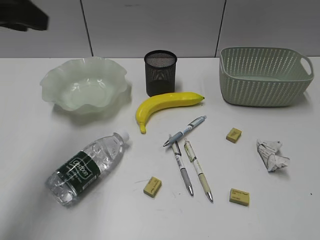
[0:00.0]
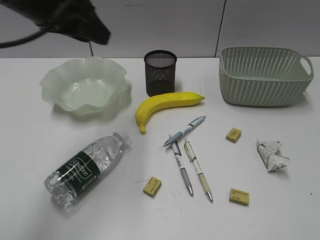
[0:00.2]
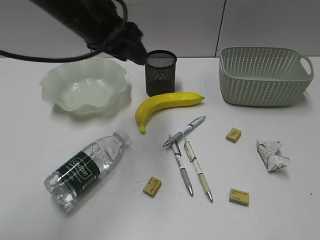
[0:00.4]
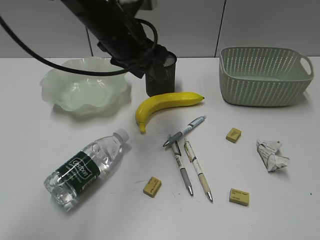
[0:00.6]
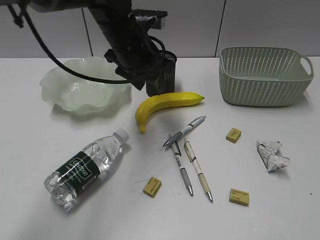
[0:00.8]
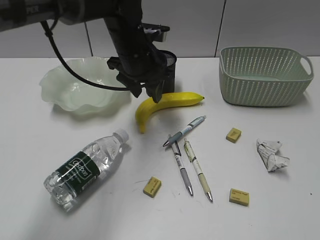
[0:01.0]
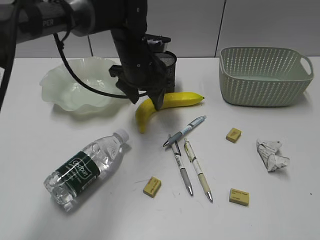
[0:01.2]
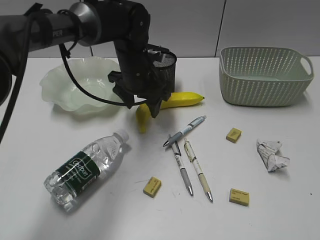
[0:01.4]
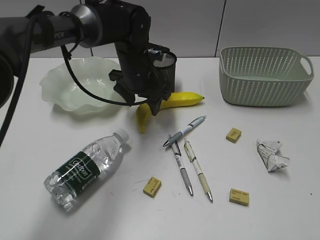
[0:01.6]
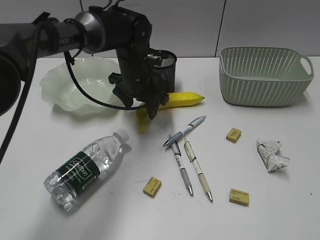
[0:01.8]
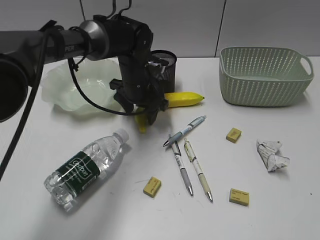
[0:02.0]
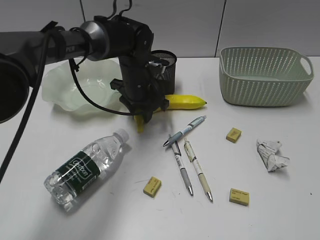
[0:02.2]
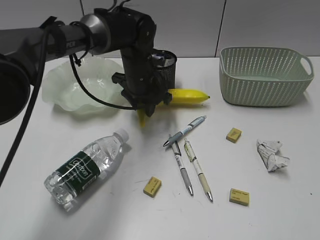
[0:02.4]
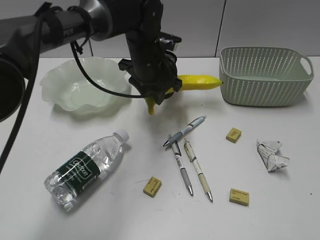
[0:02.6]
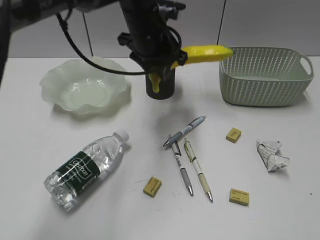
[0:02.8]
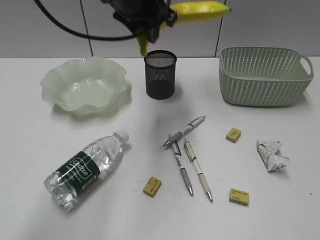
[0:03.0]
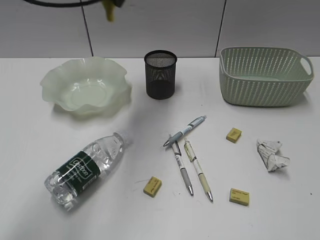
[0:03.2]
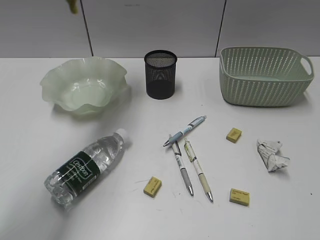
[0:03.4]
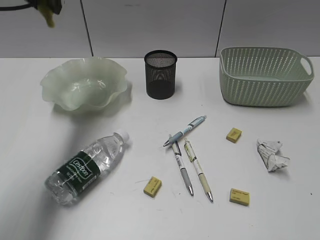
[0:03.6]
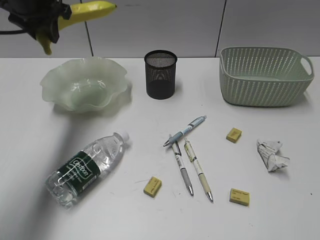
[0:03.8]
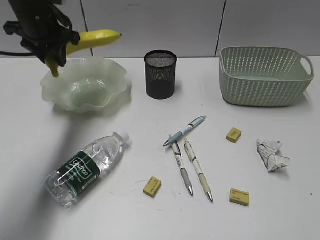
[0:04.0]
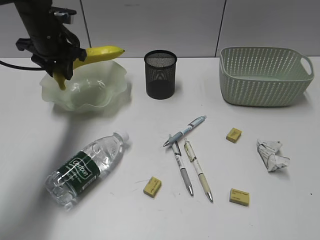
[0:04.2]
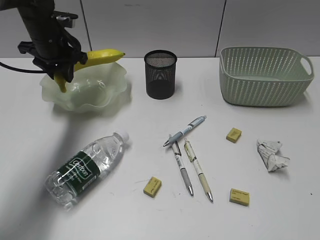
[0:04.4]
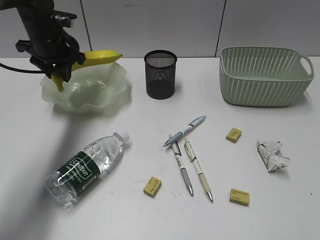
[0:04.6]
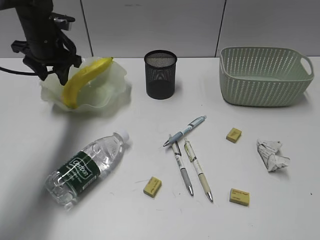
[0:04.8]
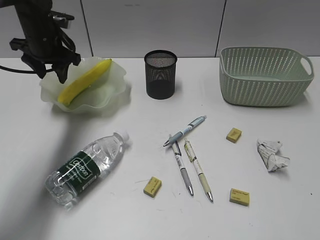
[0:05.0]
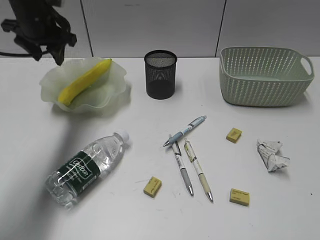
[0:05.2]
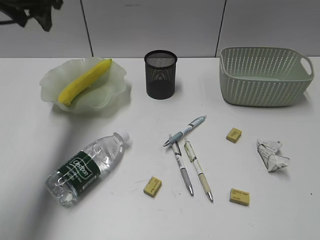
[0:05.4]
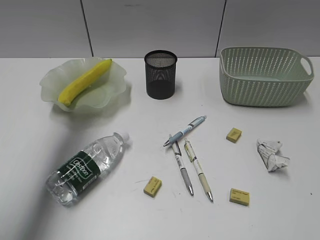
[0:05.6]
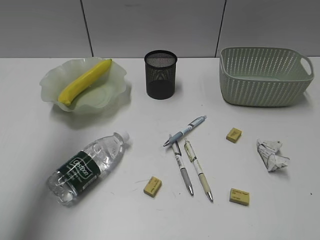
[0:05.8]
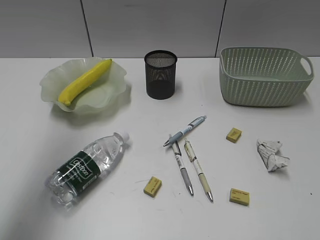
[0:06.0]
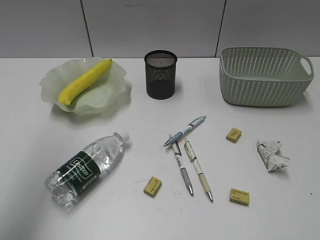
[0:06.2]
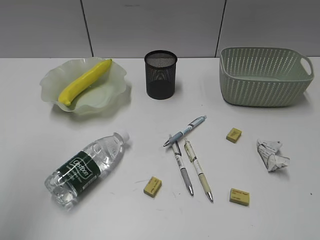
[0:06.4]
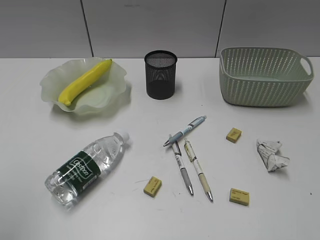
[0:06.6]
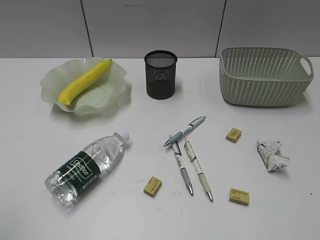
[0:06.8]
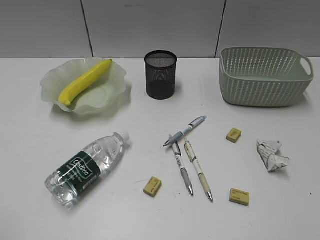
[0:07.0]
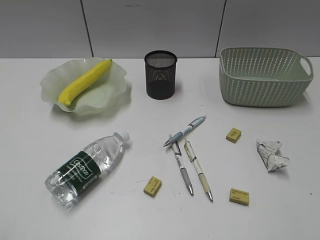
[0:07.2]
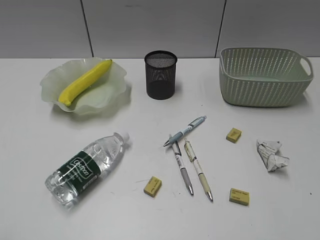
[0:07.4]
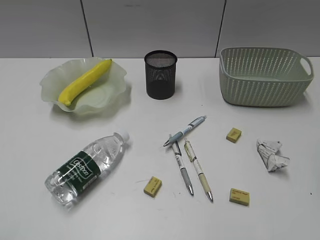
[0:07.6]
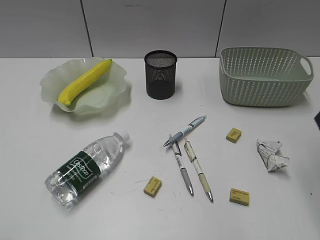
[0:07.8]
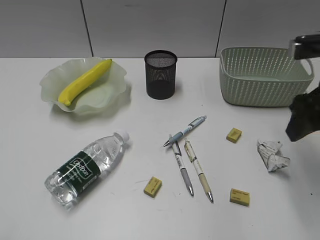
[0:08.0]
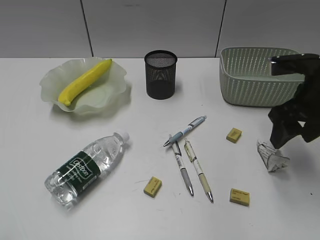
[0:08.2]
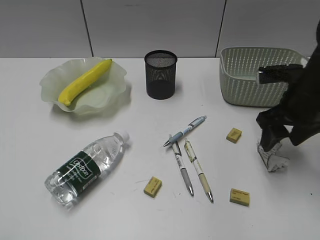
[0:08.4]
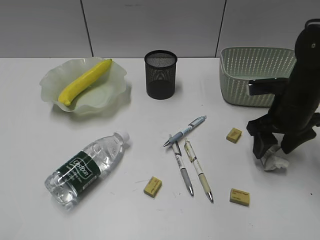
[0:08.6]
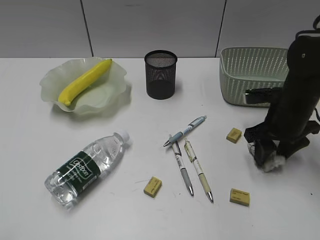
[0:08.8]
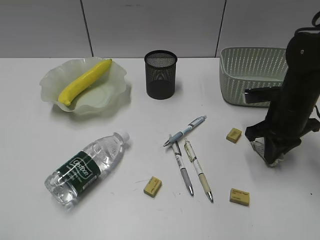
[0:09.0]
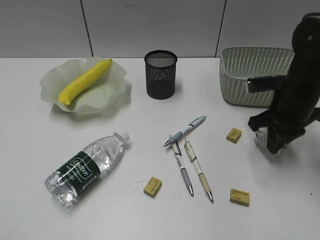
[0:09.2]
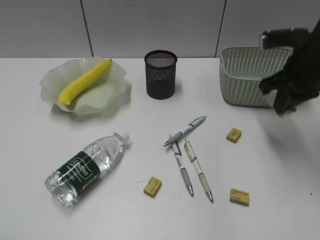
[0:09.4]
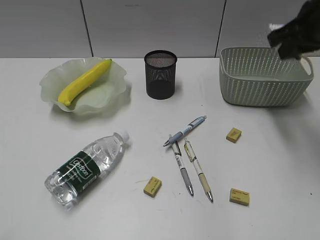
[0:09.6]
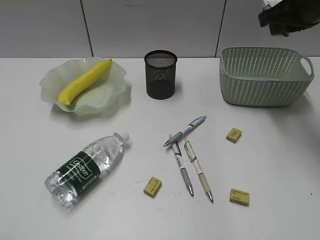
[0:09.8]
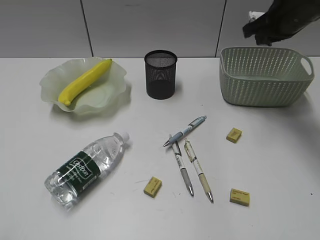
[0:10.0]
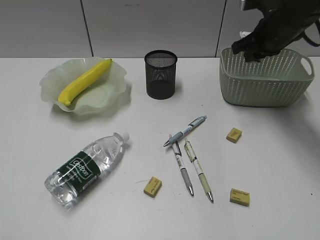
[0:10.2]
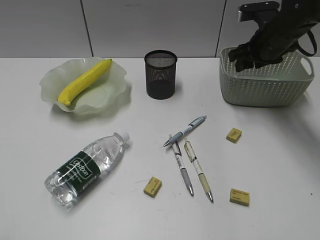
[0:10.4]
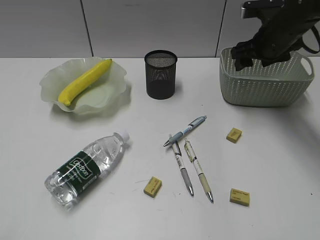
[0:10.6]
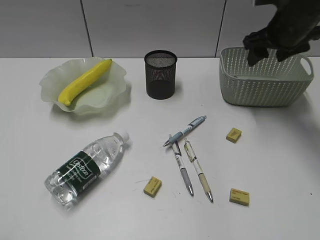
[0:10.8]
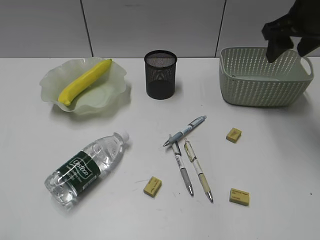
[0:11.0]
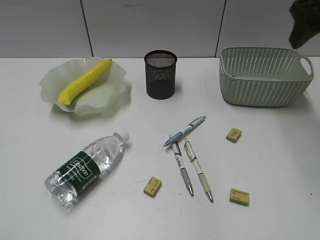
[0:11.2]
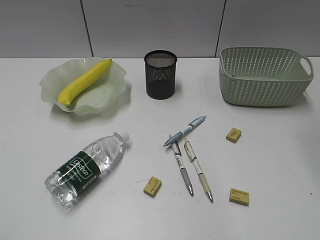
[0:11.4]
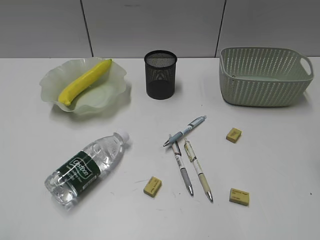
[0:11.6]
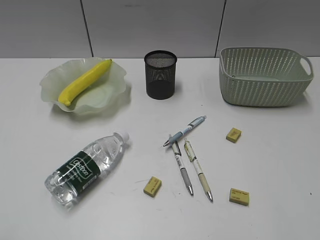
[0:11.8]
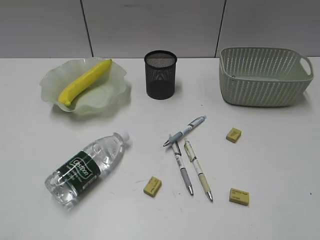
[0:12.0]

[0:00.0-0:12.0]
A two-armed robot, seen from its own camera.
Step, 0.0 to 2.2 s: Grasp the banana with left gripper.
Step, 2.4 to 4.8 s: Place the banana in the plate with left gripper.
Step, 5.0 to 9.0 s: Grasp the waste paper with right gripper.
Step, 9.2 to 10.6 s: Place the waste paper in the basket with right gripper.
0.0 to 1.6 s: The left gripper shifts about 30 cm to the right, downward and forward, and opens up.
1.6 to 3.0 s: The left gripper travels upward by some 15 cm, and closes its fingers.
3.0 to 4.4 s: The left gripper shifts approximately 20 cm to the left, downward and forward.
4.4 to 6.0 s: The left gripper moves upward and backward, about 35 cm.
6.0 to 7.6 s: The left gripper is displaced backward and downward by about 35 cm.
7.6 to 9.0 s: The right gripper moves downward and forward, about 30 cm, and closes.
9.0 to 10.4 s: The right gripper is displaced forward and upward by approximately 15 cm, and opens its fingers.
10.4 to 12.0 s: The right gripper shifts about 35 cm backward.

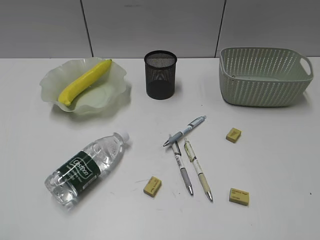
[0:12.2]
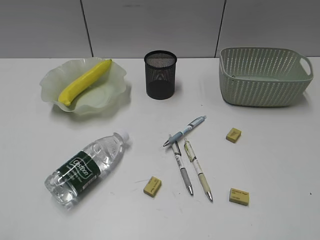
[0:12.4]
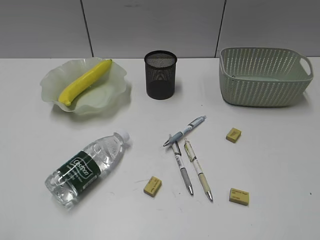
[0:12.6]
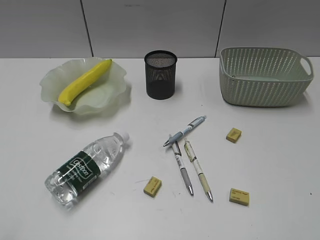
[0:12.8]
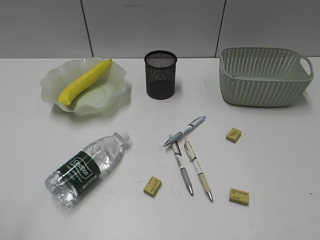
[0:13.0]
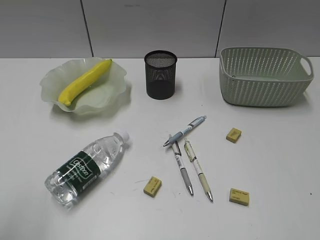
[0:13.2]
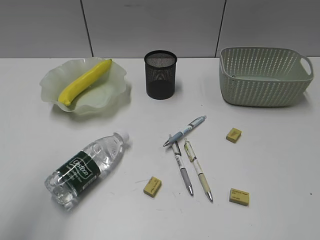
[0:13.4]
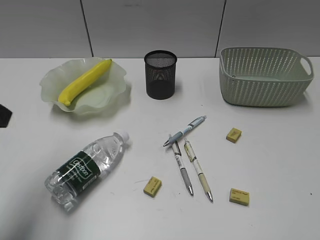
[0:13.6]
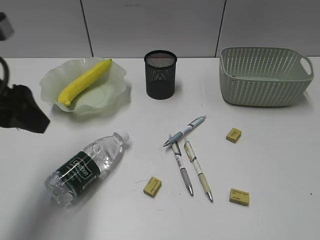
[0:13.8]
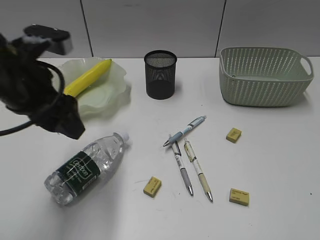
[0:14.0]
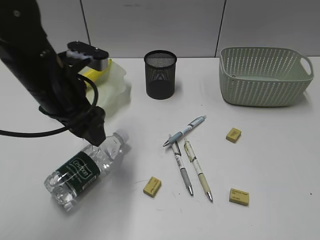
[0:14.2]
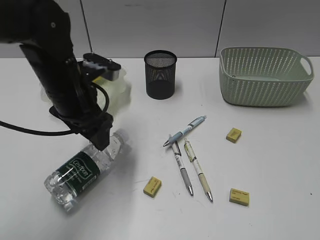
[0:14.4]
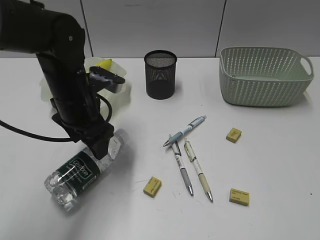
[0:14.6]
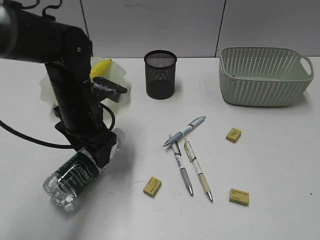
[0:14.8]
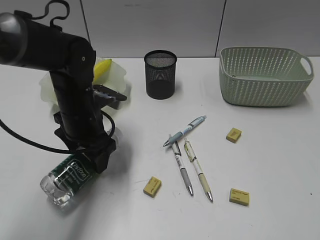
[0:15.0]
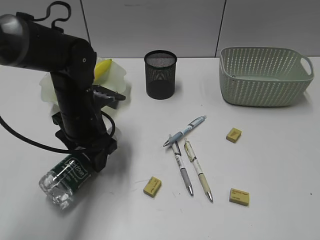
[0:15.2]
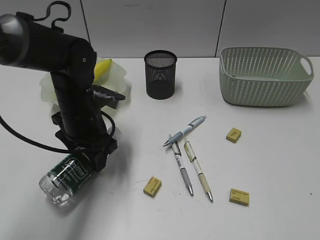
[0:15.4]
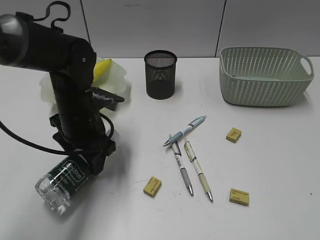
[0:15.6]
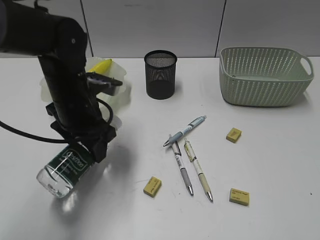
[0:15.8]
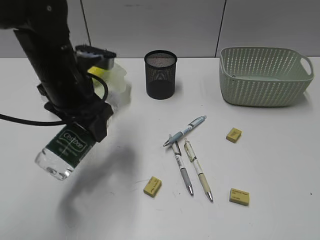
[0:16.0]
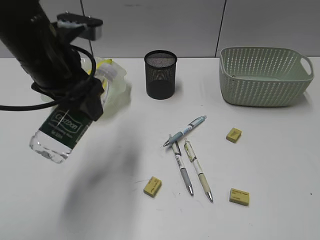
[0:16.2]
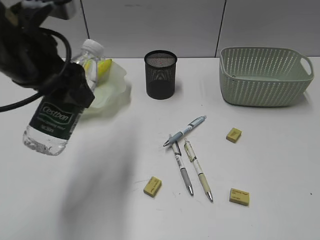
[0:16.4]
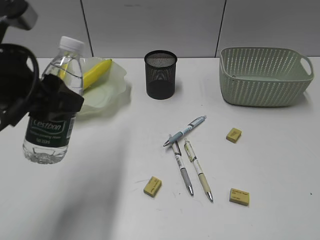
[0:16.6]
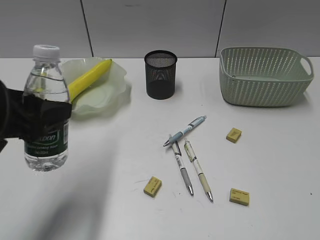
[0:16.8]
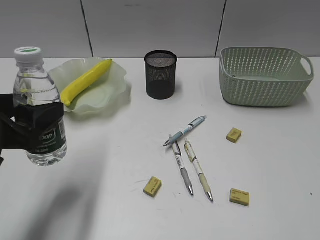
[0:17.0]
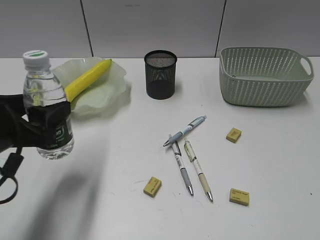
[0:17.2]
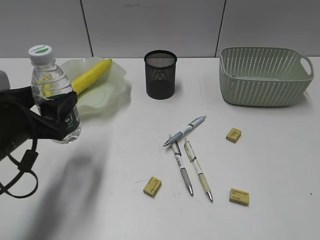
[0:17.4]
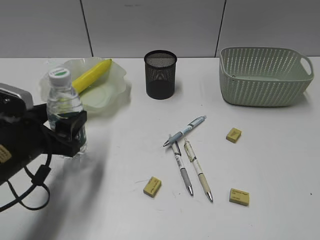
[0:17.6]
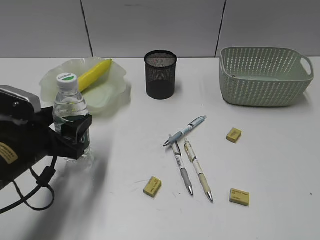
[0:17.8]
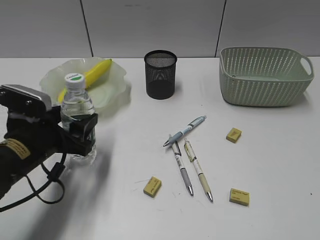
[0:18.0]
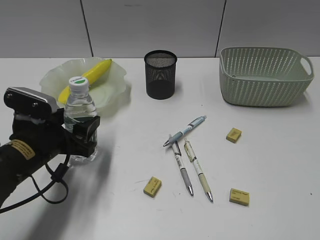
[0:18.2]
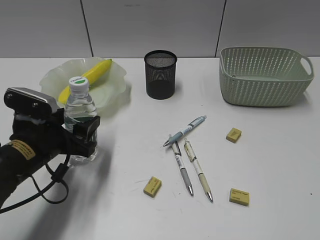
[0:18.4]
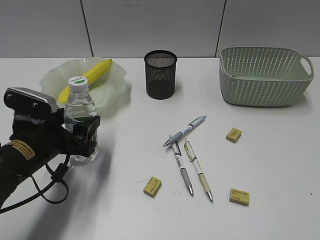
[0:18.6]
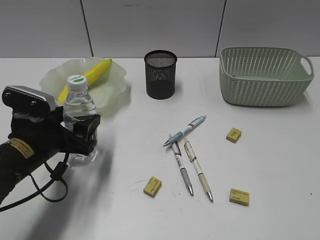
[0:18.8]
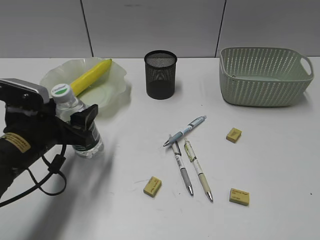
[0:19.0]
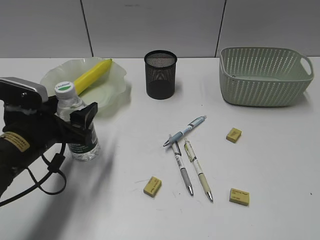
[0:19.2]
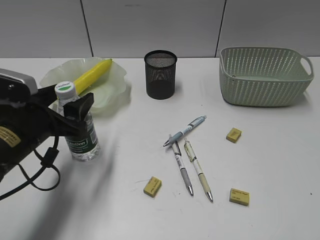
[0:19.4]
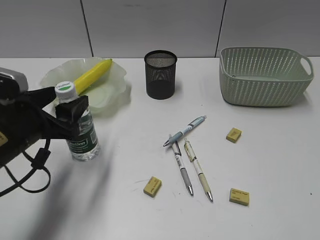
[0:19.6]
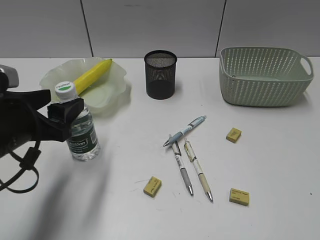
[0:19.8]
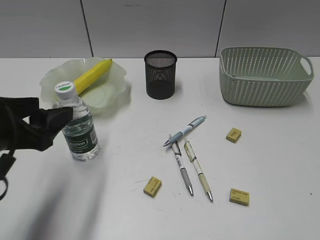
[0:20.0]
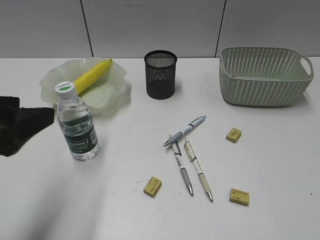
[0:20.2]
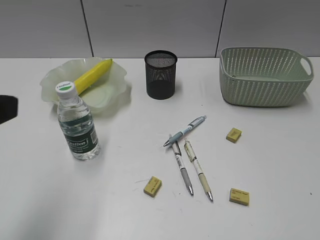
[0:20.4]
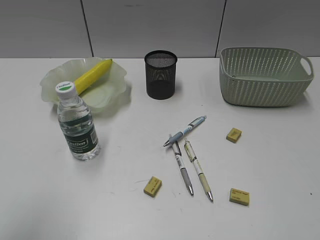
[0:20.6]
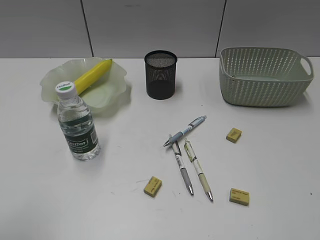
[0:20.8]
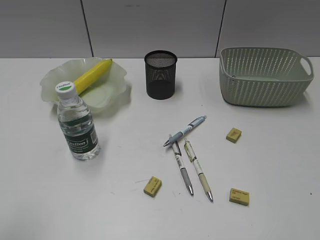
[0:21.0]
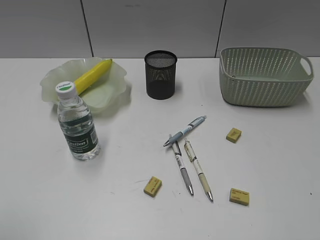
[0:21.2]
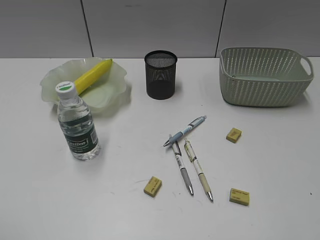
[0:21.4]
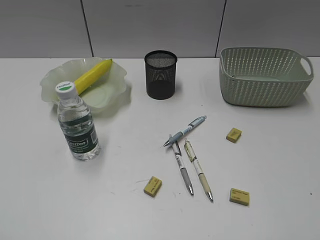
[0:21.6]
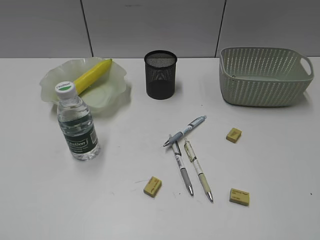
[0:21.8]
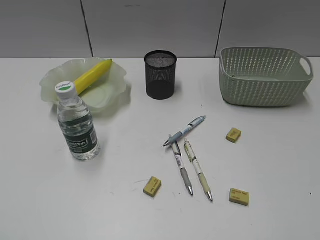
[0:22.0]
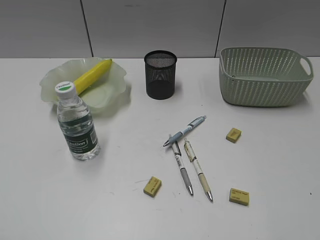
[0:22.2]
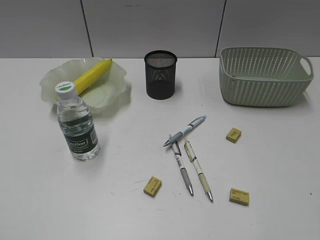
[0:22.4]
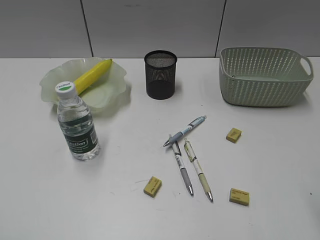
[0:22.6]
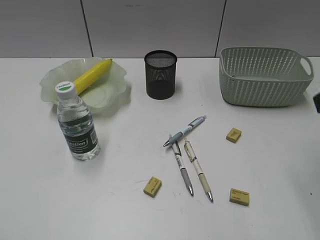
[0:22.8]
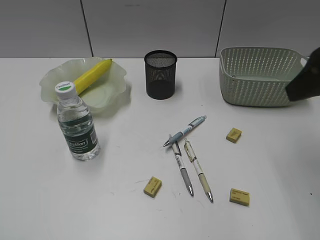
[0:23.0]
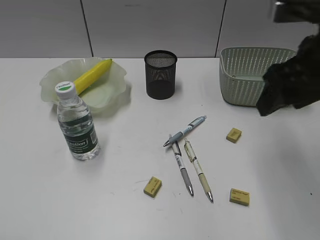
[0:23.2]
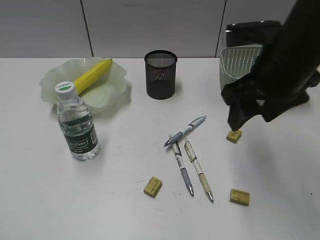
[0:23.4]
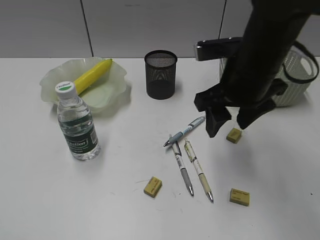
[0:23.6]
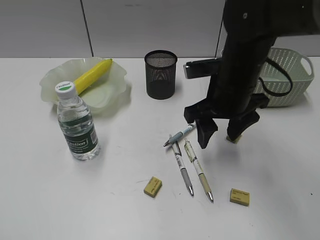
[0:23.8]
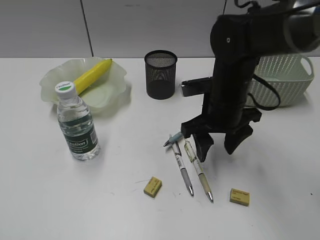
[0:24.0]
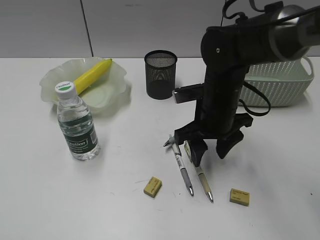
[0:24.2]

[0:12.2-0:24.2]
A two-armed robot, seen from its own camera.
Step, 12.2 to 15.2 s: Grasp the bottle with left gripper.
Step, 15.4 to 19.6 s: Stand the bottle with left gripper.
12.2 to 13.8 s: The left gripper shifts approximately 25 cm forward and to the right.
13.8 to 15.2 s: The left gripper is displaced downward, to the right and forward by approximately 20 cm.
15.2 to 16.6 s: The left gripper shifts approximately 20 cm upward and backward.
16.6 to 18.2 s: The left gripper is displaced downward by roughly 15 cm.
18.2 to 19.8 s: The left gripper shifts some 5 cm upward.
19.8 to 21.2 s: The left gripper goes about 25 cm backward, upward and to the left.
22.6 to 24.2 s: The right gripper shifts approximately 30 cm forward, downward and to the left.
